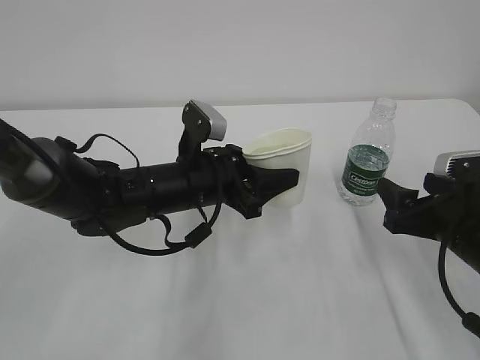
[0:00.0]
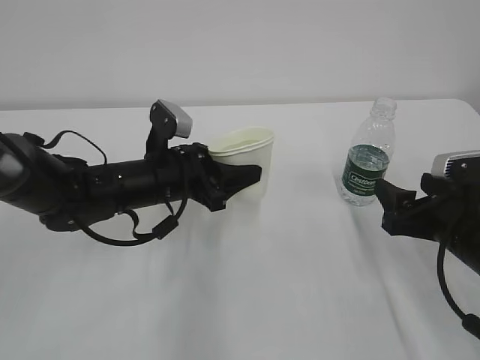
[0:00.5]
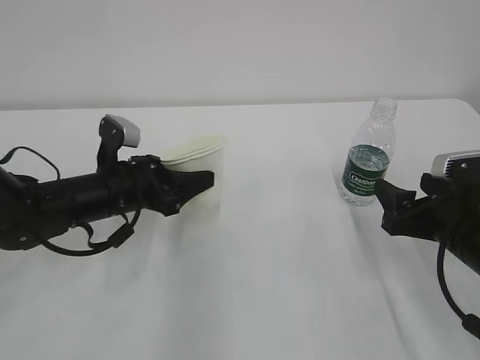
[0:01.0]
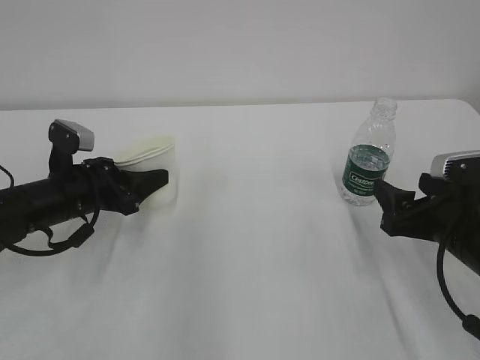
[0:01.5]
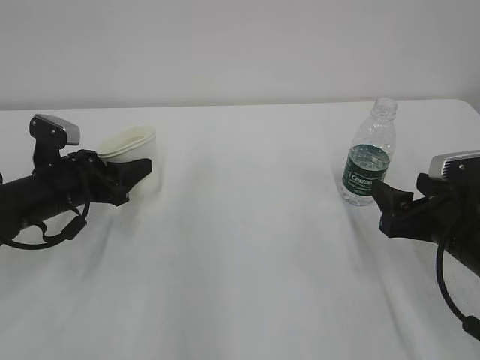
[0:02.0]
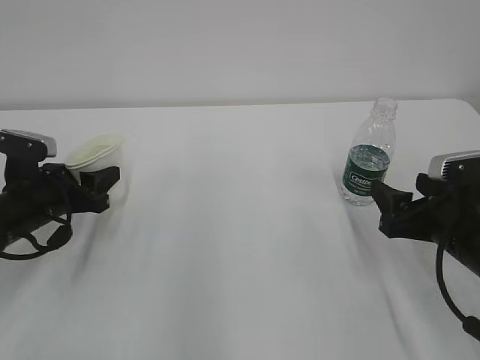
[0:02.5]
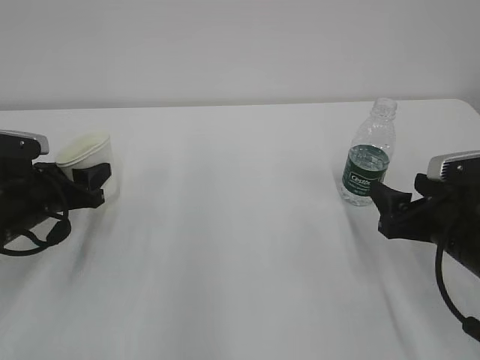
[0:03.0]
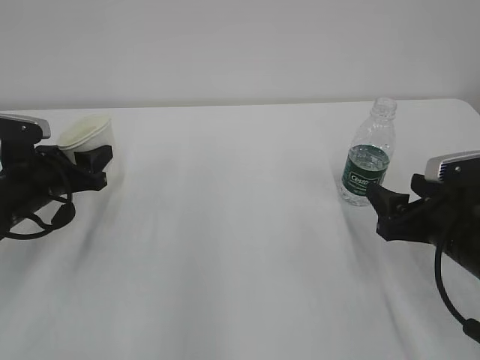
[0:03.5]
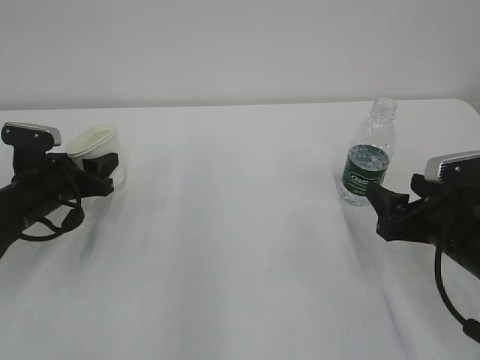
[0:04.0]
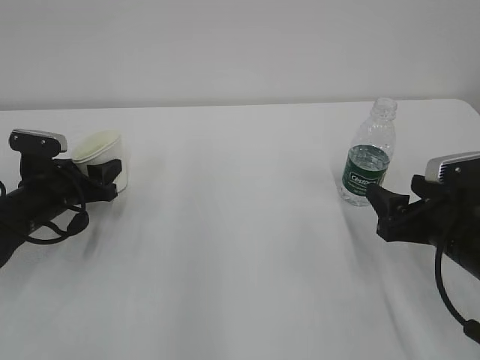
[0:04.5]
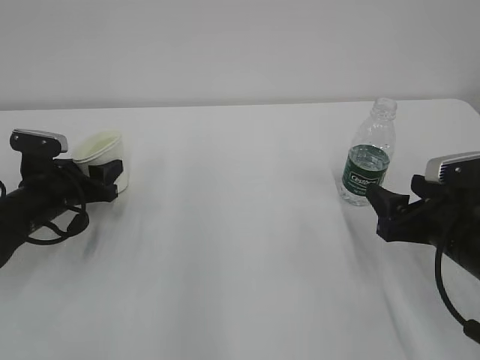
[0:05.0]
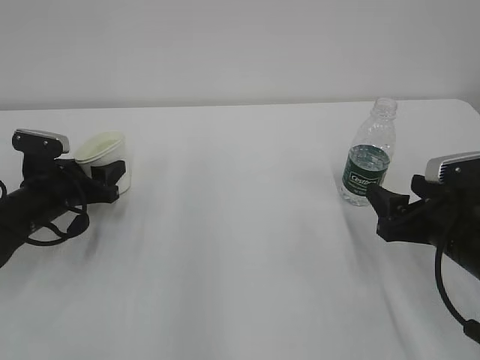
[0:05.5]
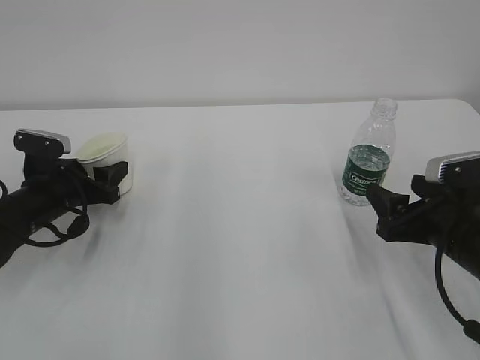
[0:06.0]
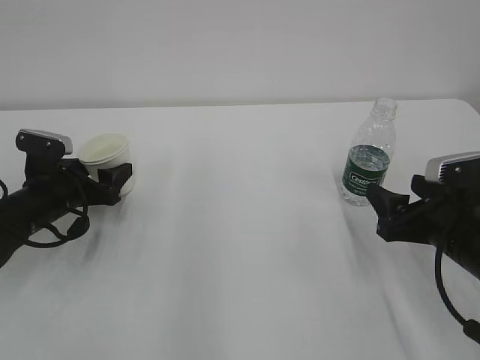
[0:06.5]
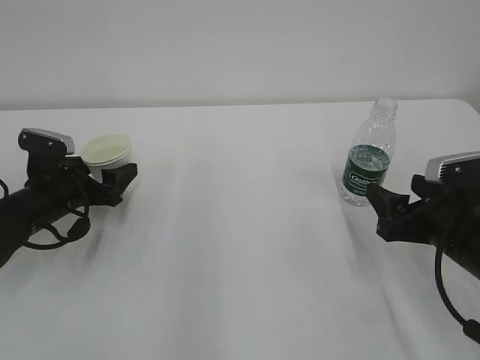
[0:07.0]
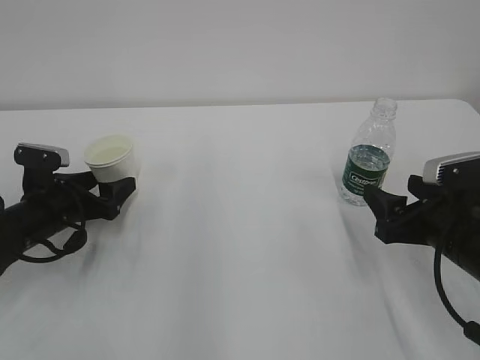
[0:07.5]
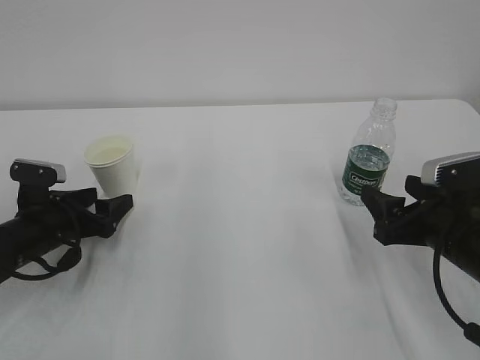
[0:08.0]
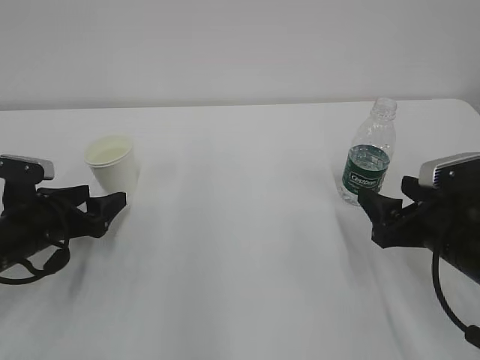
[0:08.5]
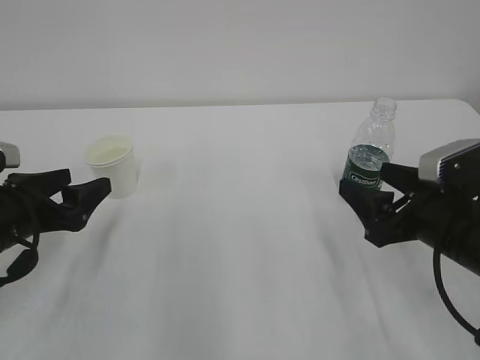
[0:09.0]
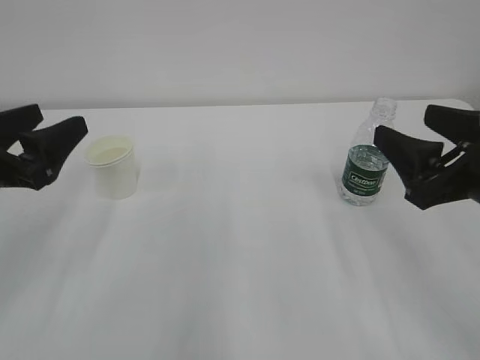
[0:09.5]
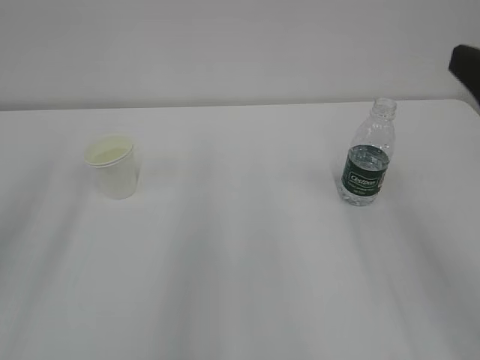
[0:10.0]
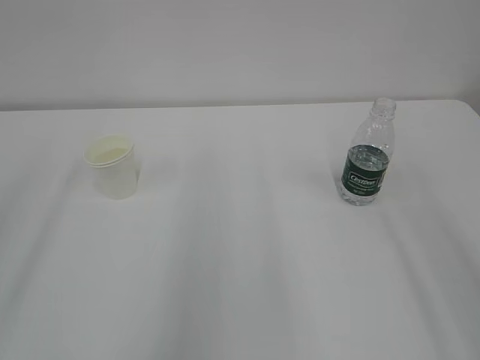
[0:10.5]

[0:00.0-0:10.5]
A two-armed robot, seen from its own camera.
0:00.0 to 0:02.0: The left gripper travels to the left by some 20 cm.
0:02.0 to 0:04.0: The grippers stay close to where they were, moving slightly.
0:04.0 to 0:06.5: The left gripper opens its fingers.
0:06.5 to 0:08.5: The left gripper heads backward, covering about 5 cm.
0:08.5 to 0:10.5: The two grippers go about 30 cm upward and backward.
